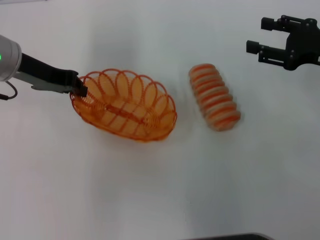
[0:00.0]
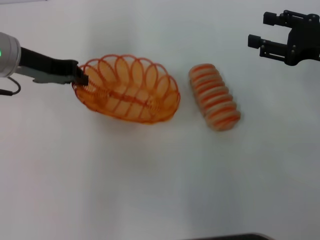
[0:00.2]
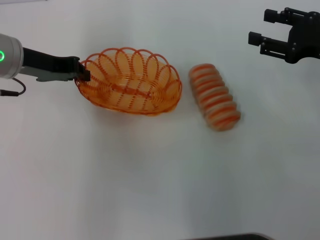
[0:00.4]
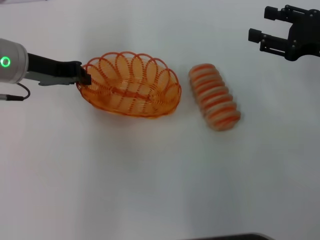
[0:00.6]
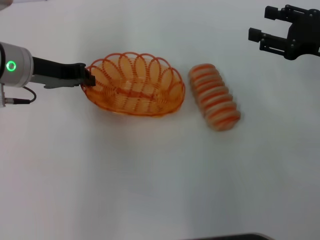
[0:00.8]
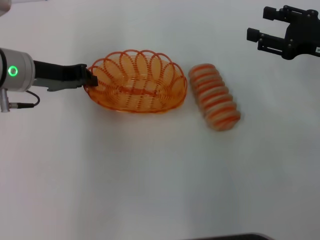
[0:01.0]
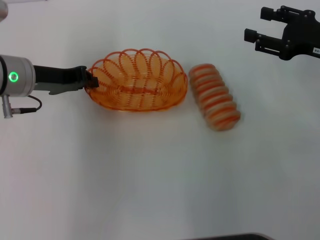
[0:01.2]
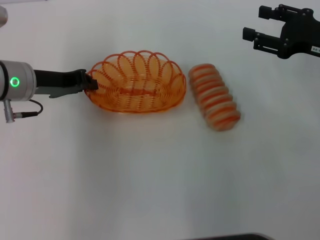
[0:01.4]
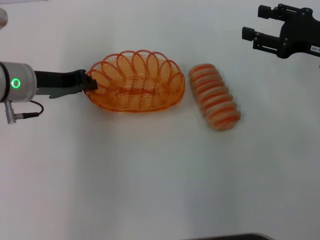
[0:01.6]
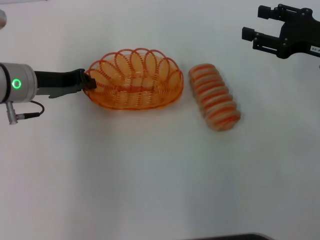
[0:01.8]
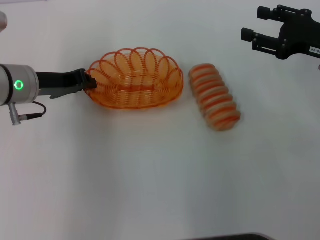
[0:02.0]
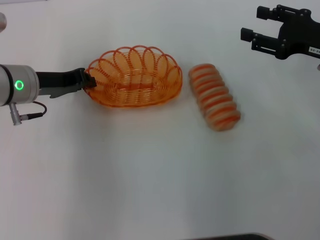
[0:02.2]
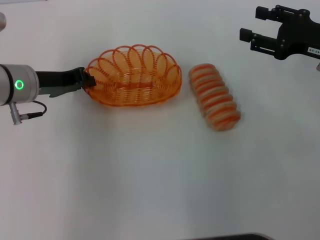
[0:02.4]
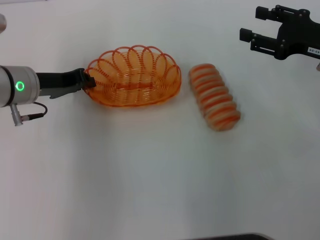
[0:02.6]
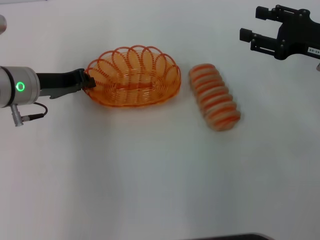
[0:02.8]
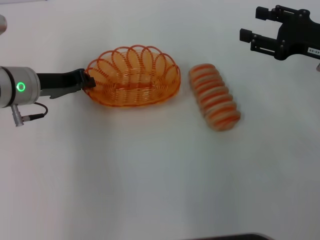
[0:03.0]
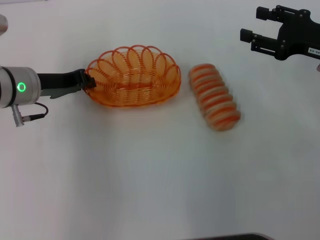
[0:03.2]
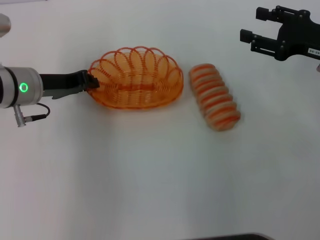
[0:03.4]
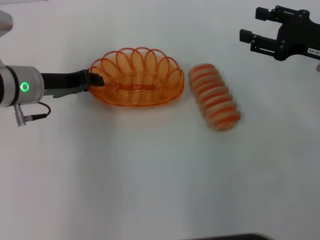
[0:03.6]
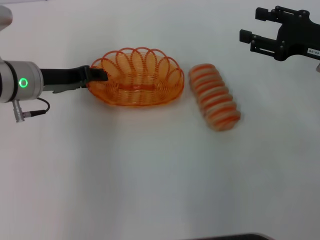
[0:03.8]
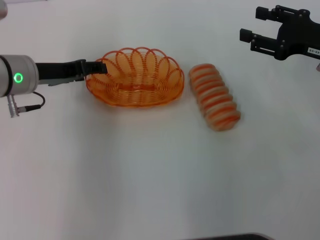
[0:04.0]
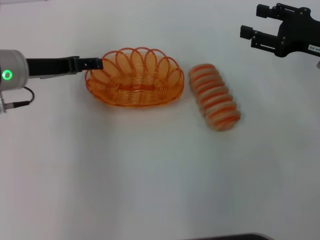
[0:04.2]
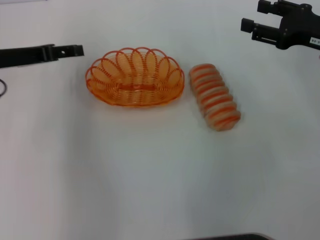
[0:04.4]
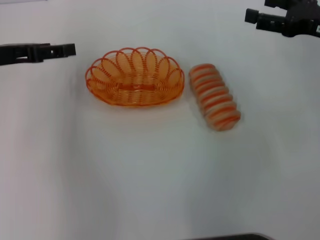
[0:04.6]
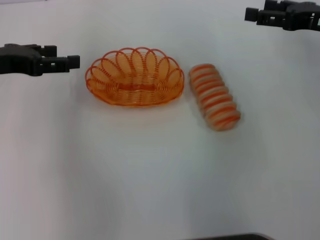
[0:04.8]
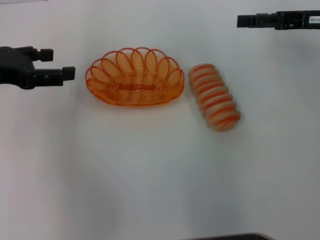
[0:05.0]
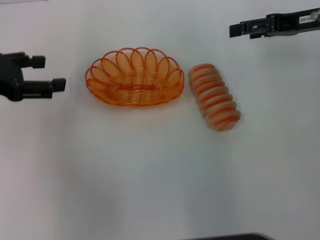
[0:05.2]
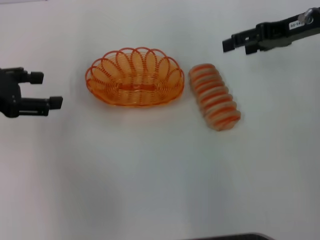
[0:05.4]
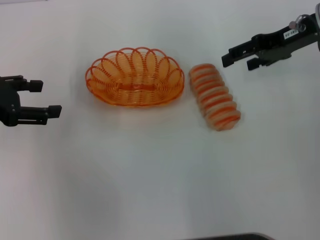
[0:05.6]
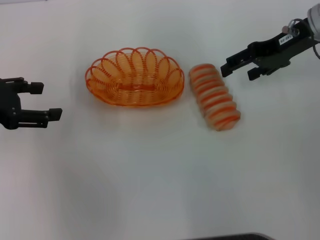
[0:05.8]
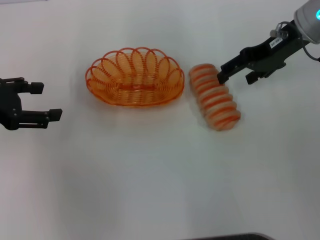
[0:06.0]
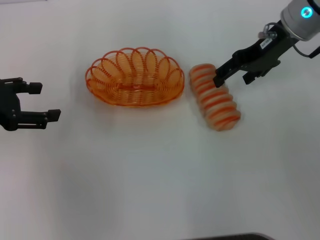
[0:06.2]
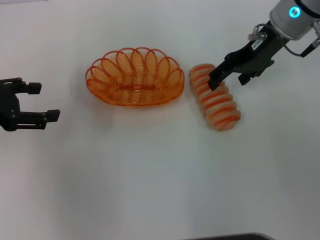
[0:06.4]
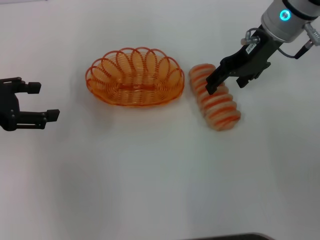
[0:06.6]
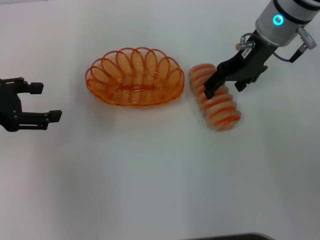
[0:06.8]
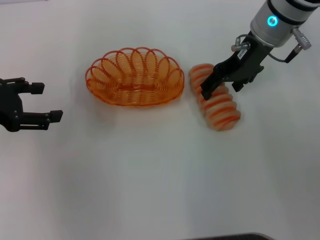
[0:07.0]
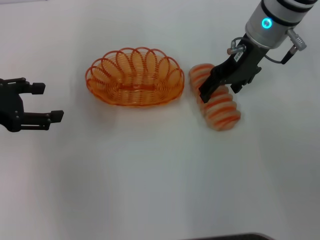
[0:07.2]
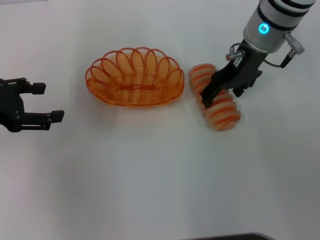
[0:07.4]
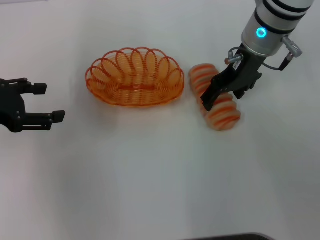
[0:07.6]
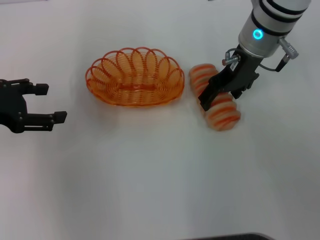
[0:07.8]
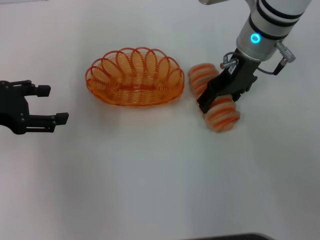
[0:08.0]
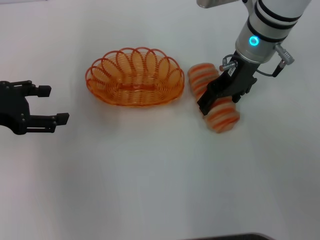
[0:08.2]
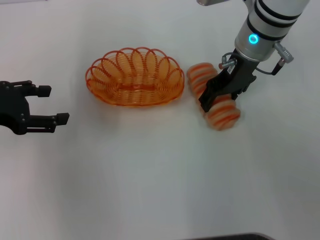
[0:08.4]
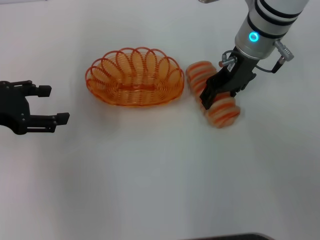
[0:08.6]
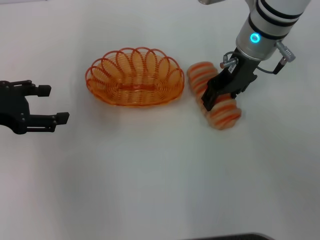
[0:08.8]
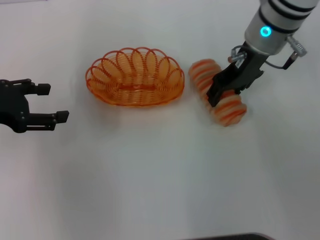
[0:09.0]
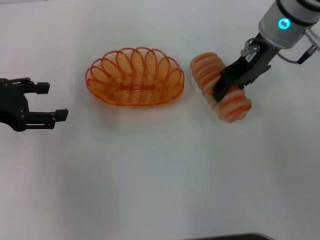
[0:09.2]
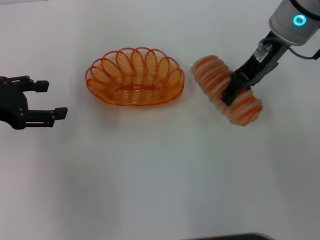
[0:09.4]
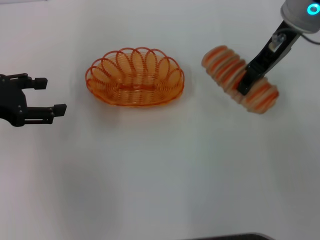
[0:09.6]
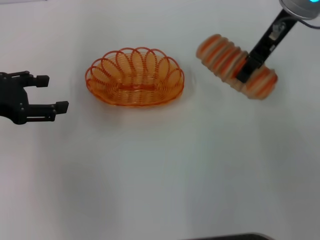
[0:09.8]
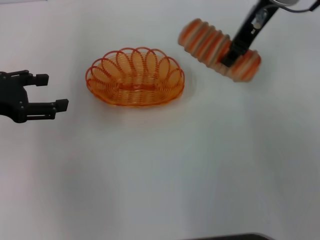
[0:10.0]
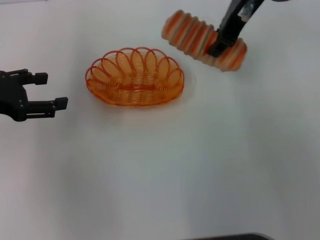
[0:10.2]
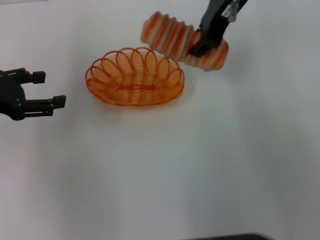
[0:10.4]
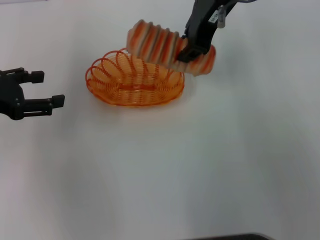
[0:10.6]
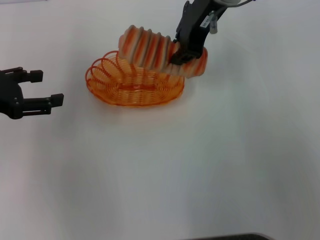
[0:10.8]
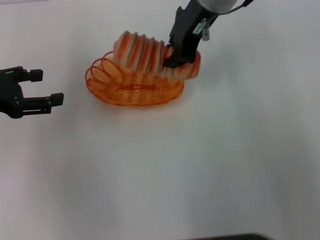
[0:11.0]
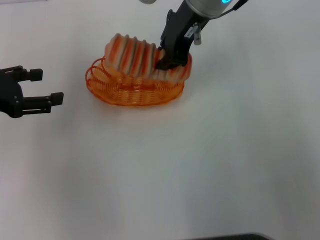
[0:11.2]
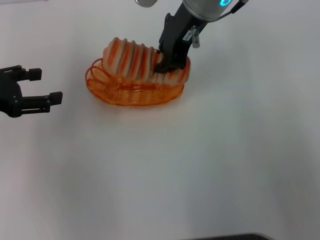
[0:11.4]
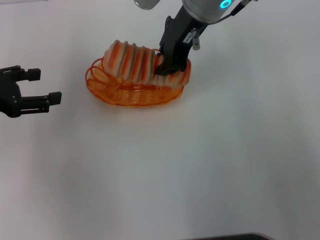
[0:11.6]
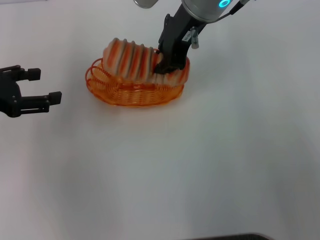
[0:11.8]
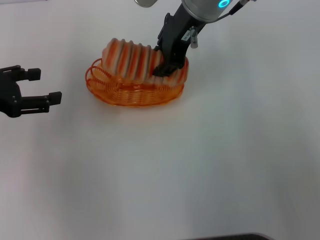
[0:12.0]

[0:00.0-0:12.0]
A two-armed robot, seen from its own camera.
Step, 0:00.2 to 0:04.4: Place the basket in the center of view with the left gripper.
Step, 0:04.6 to 0:09.2: Pick up the long bread with the right gripper.
0:00.0 to 0:01.6: The left gripper goes roughly 5 cm downward.
0:01.6 to 0:03.0: The two grippers keep their place.
0:03.0 to 0:04.4: The left gripper moves roughly 5 cm, and opens up.
0:04.4 to 0:06.0: The left gripper heads backward, covering approximately 5 cm. The right gripper moves to the left and forward, about 10 cm.
0:06.0 to 0:07.6: The right gripper is displaced to the left by roughly 10 cm.
0:07.6 to 0:09.0: The right gripper closes.
0:09.0 to 0:10.4: The right gripper goes some 10 cm upward, and closes.
0:10.4 to 0:12.0: The right gripper changes place by roughly 5 cm.

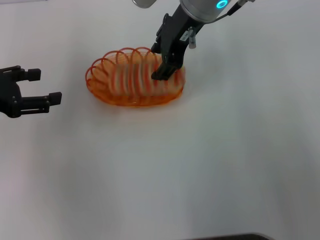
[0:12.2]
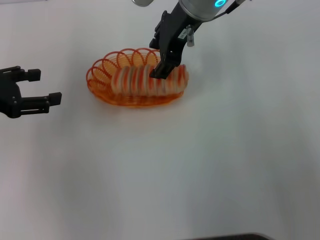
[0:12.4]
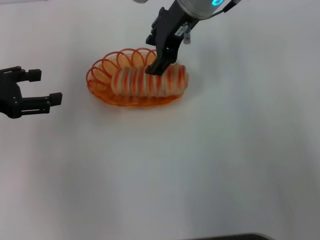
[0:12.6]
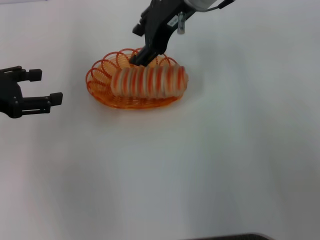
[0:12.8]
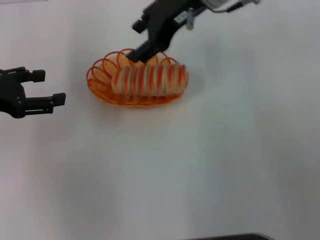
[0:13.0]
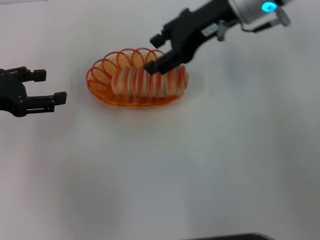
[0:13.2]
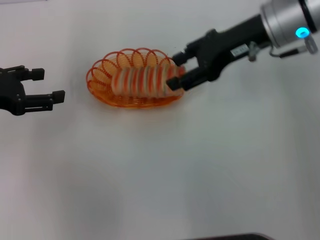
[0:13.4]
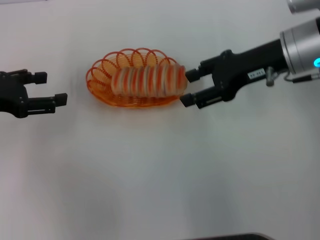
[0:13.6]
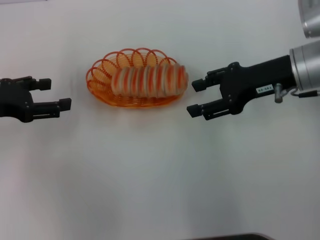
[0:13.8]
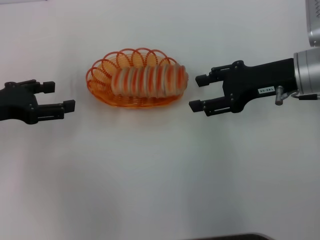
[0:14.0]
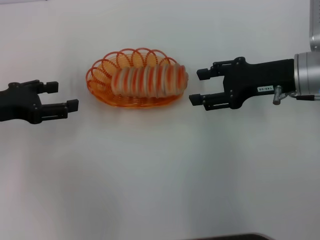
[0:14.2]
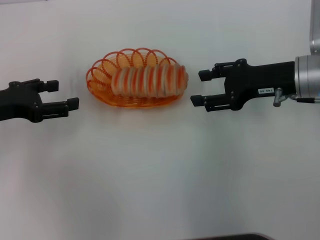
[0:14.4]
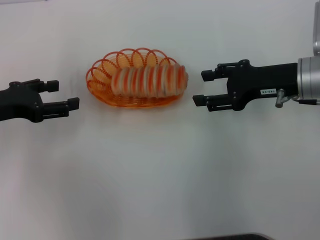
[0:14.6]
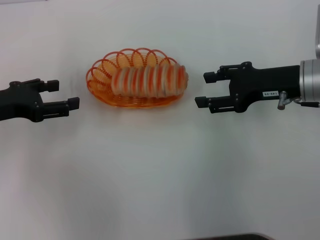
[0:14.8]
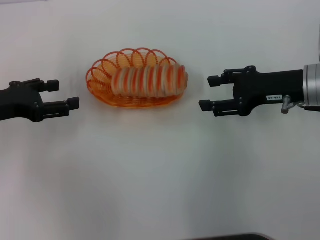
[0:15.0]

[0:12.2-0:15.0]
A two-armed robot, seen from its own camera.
0:12.2 to 0:13.6: The right gripper is displaced to the right, backward and downward by about 15 cm.
0:13.6 to 0:15.0: The right gripper heads downward, covering roughly 5 cm.
